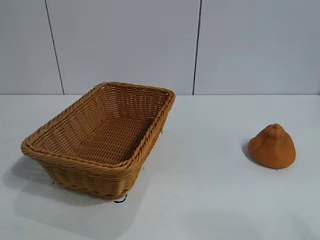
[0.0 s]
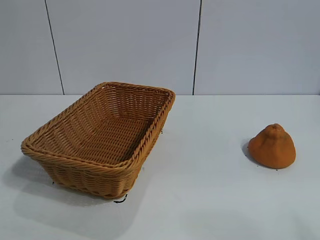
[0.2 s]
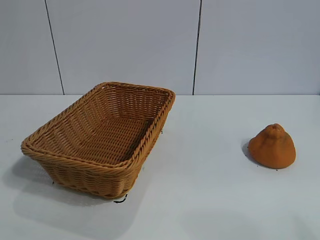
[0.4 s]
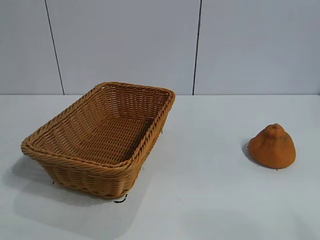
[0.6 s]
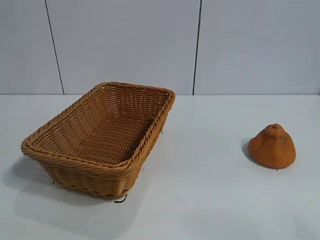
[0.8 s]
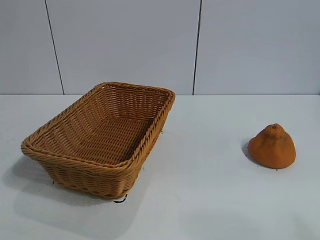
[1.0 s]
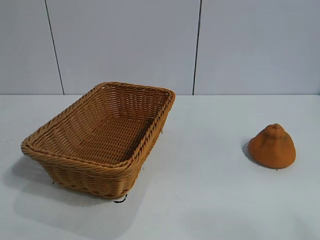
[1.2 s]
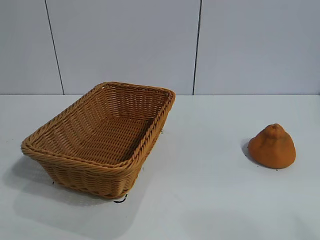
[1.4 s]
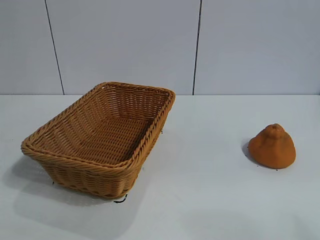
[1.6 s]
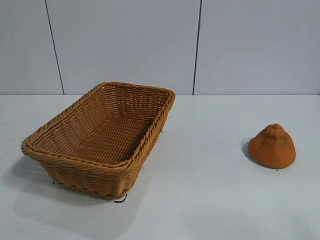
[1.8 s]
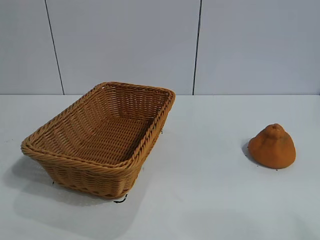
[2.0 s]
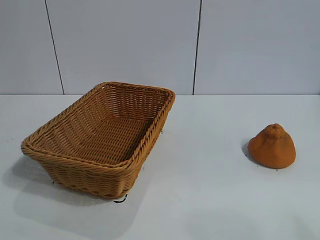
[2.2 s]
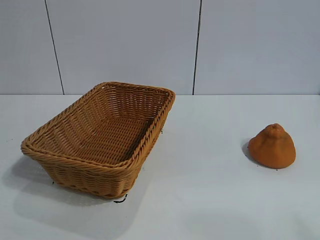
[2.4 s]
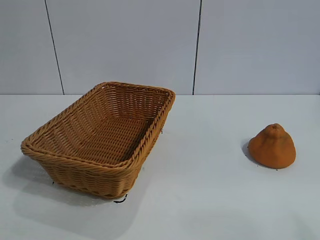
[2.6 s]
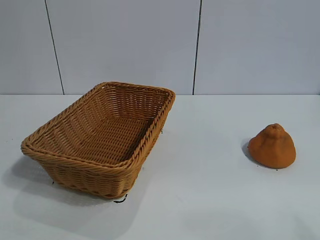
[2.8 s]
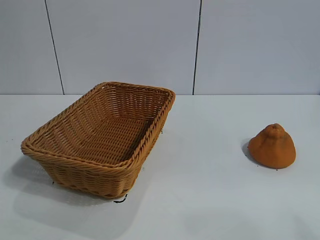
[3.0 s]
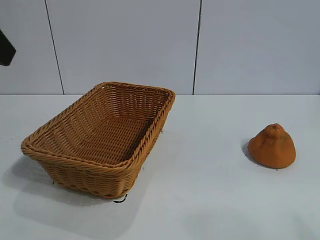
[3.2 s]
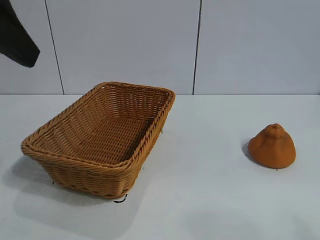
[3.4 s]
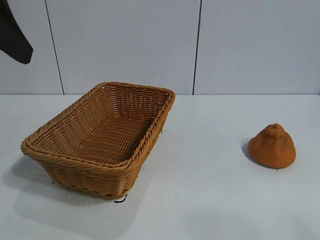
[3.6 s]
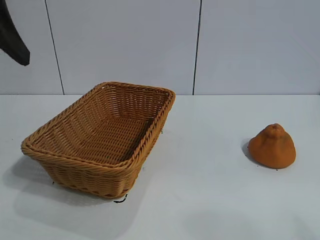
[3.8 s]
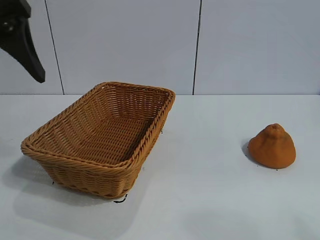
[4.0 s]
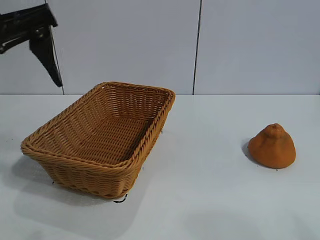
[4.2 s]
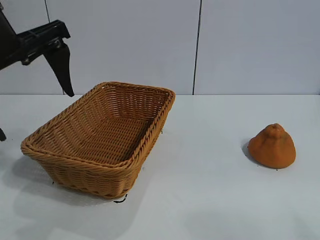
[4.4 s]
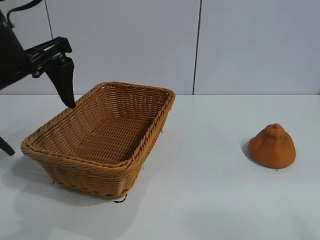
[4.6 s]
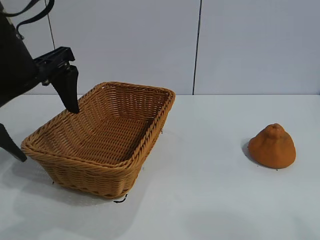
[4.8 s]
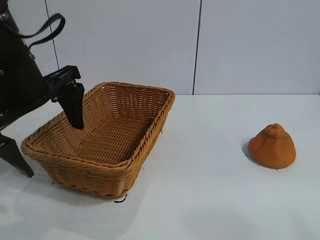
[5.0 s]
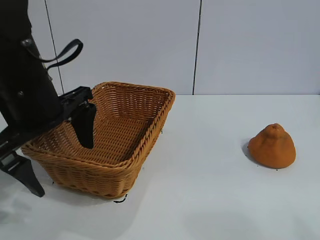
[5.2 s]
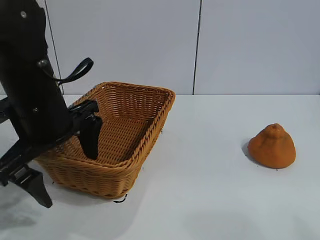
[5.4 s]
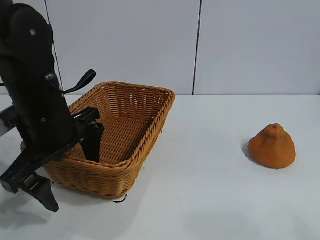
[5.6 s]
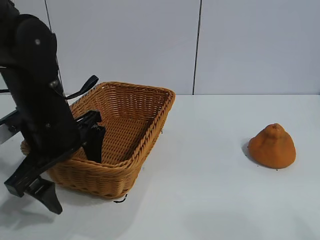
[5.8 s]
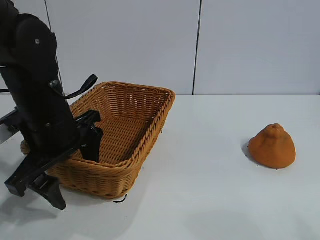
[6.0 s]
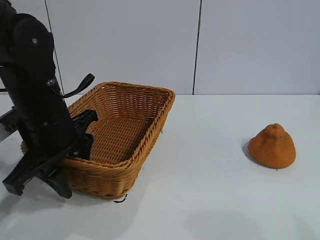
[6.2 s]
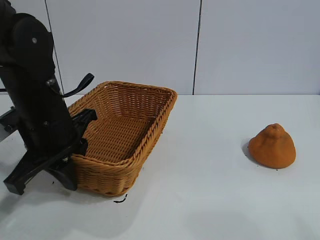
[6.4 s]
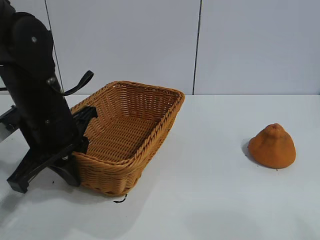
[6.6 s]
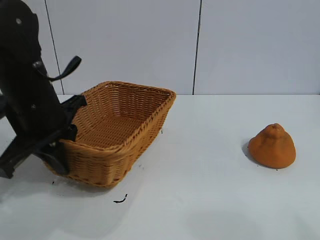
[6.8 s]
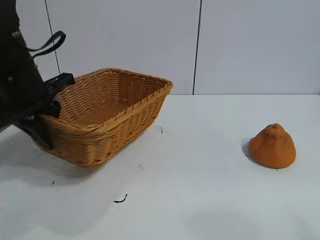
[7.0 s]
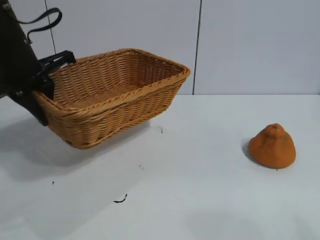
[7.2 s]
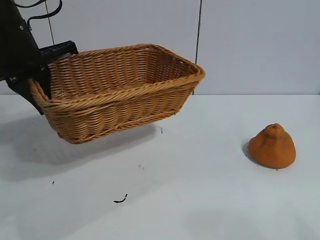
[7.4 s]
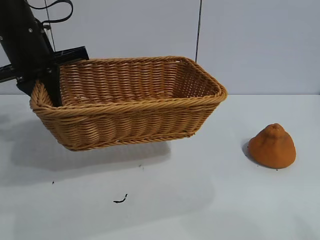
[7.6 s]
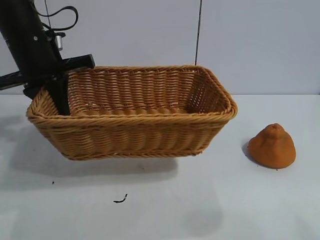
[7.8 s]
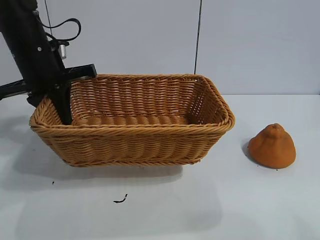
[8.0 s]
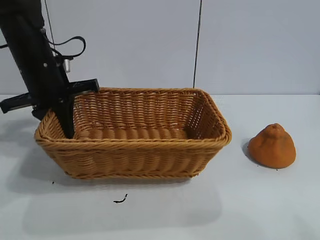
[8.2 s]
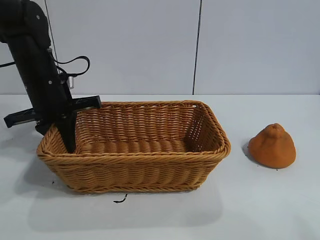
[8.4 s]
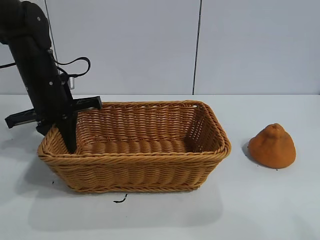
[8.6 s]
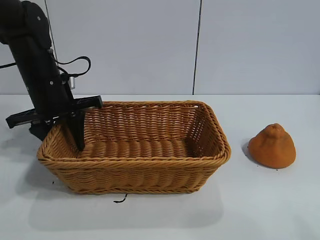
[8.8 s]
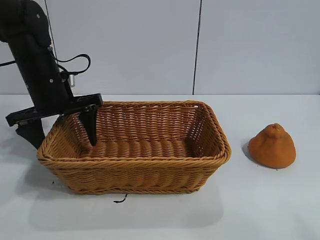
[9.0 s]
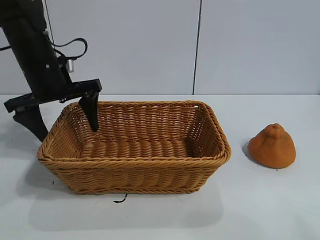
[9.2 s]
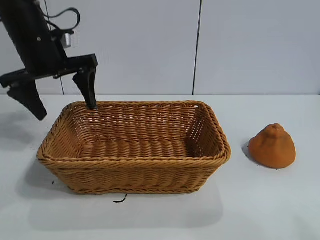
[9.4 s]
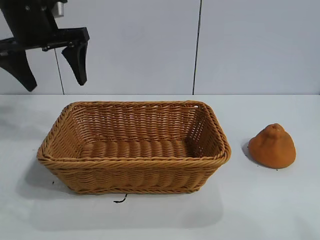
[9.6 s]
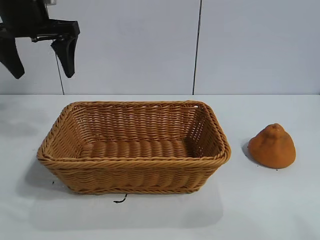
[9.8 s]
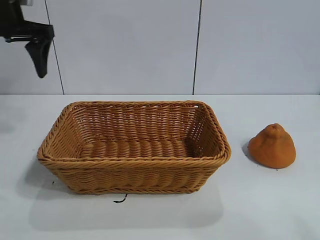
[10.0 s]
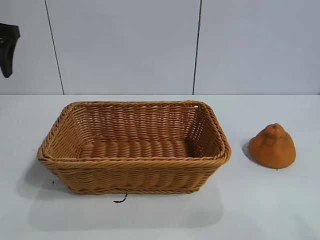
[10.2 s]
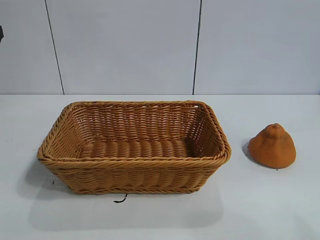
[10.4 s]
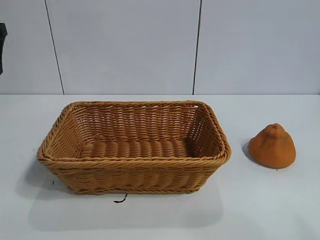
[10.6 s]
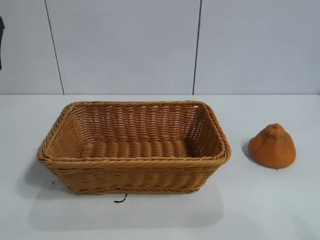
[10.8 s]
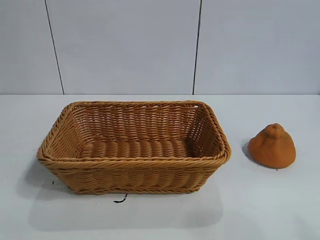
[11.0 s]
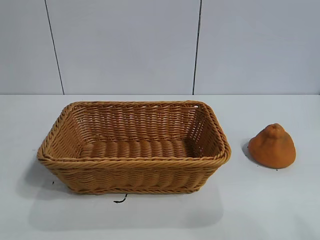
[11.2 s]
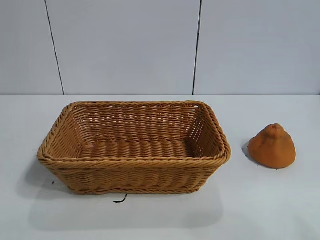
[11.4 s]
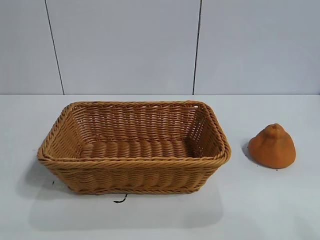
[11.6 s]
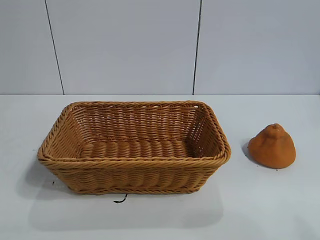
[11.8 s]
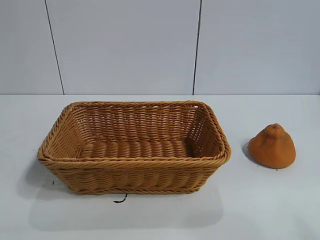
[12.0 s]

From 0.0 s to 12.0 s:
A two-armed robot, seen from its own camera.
Task of the whole recording: pick up the orange and put it into the basket.
Step, from 1.8 s to 6.4 s: Grasp the basket with left gripper.
Step, from 6.8 s to 9.0 s: Place the basket in the center of view with left gripper.

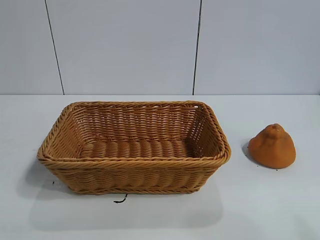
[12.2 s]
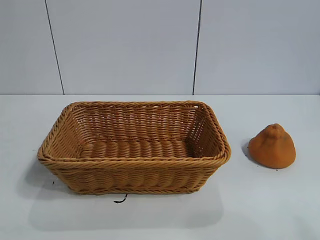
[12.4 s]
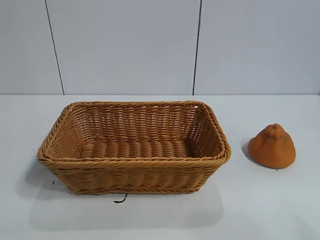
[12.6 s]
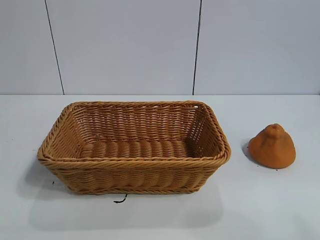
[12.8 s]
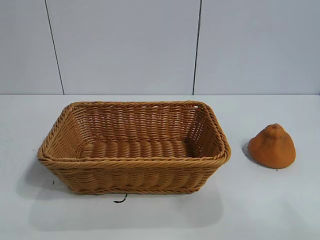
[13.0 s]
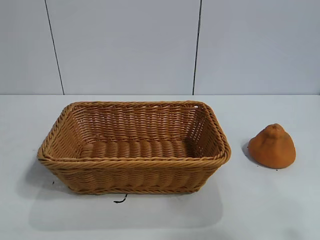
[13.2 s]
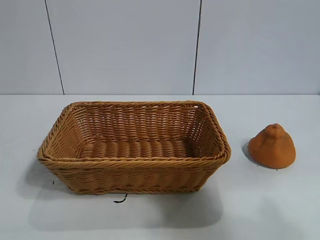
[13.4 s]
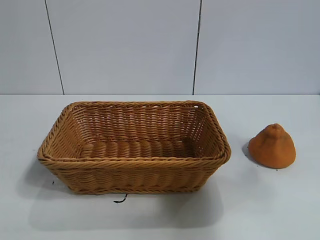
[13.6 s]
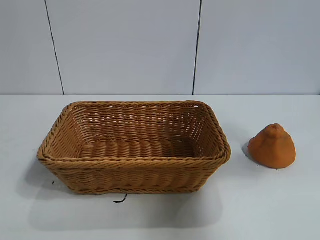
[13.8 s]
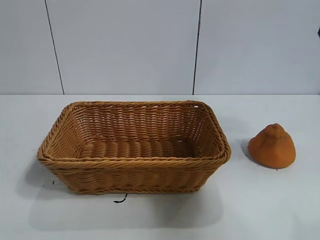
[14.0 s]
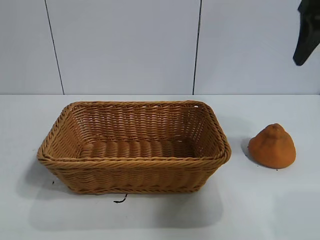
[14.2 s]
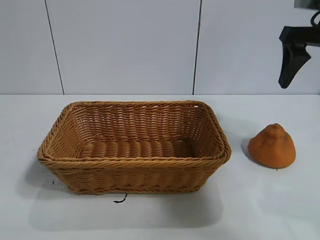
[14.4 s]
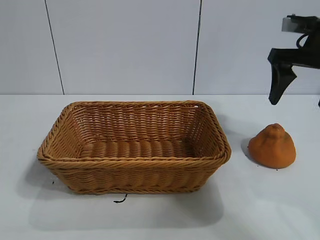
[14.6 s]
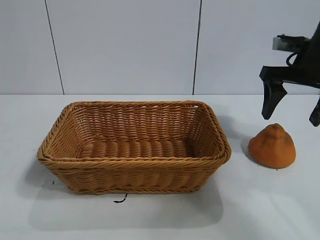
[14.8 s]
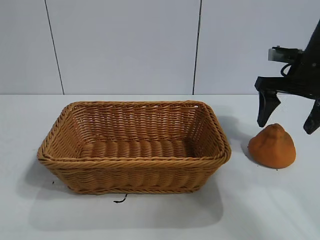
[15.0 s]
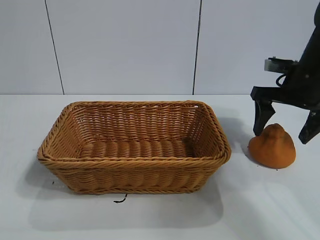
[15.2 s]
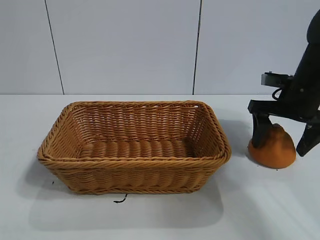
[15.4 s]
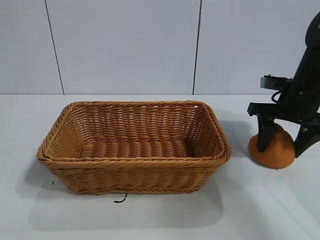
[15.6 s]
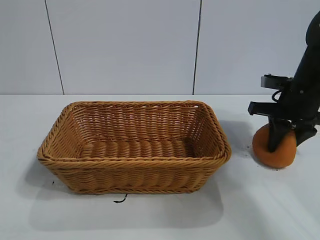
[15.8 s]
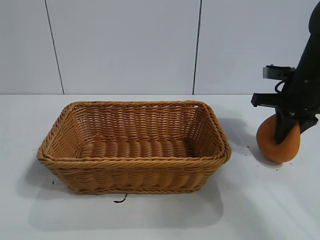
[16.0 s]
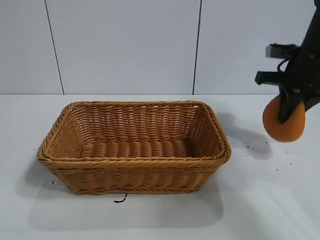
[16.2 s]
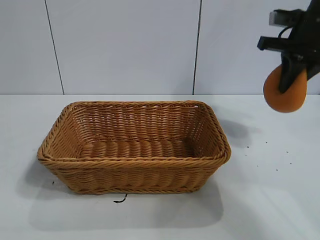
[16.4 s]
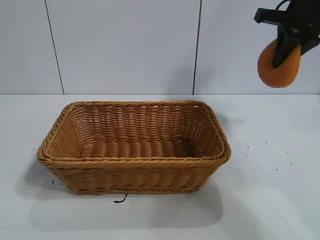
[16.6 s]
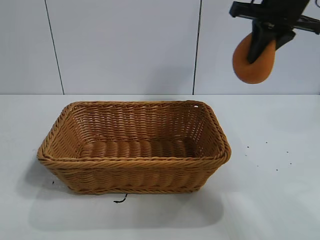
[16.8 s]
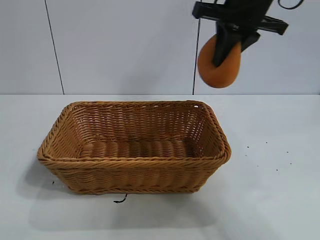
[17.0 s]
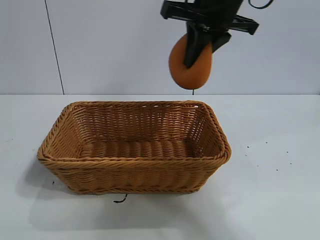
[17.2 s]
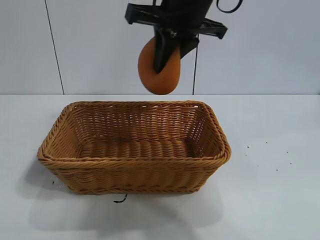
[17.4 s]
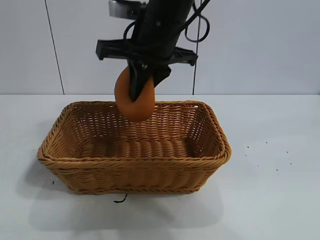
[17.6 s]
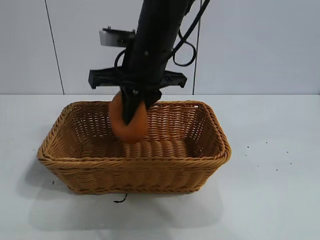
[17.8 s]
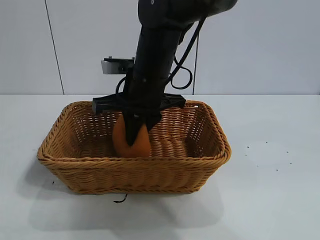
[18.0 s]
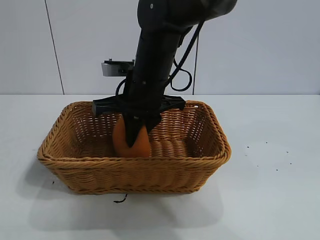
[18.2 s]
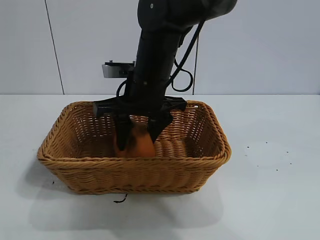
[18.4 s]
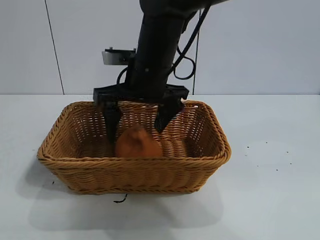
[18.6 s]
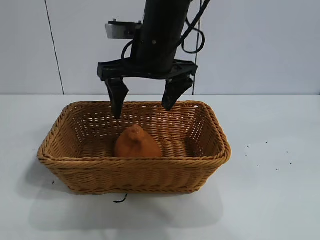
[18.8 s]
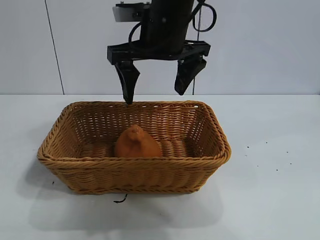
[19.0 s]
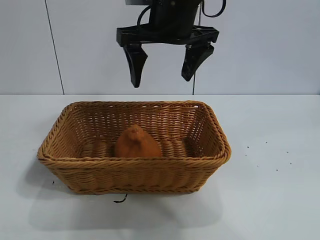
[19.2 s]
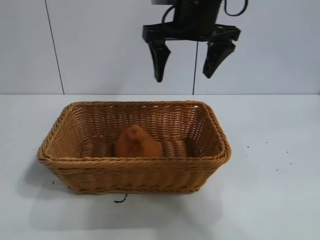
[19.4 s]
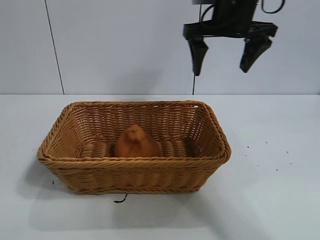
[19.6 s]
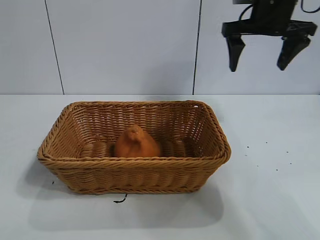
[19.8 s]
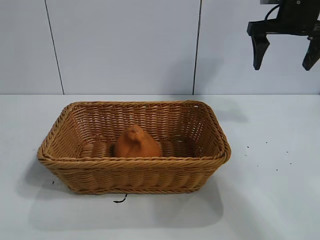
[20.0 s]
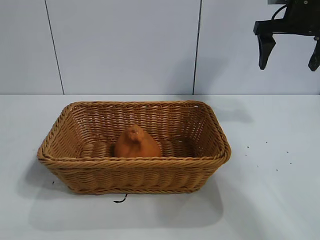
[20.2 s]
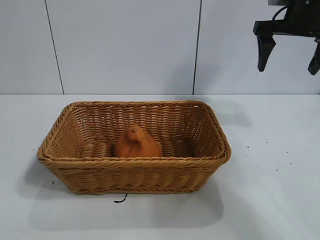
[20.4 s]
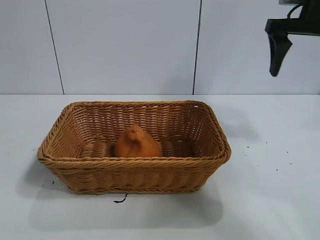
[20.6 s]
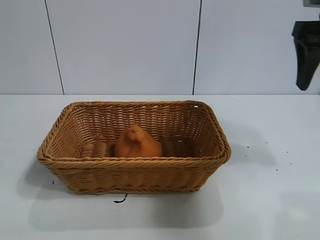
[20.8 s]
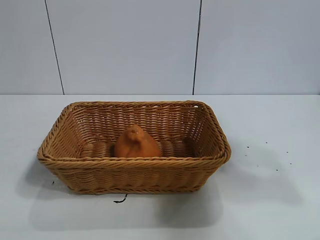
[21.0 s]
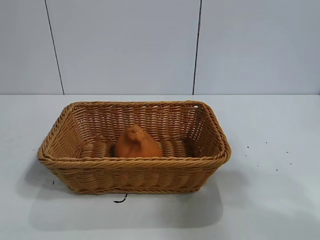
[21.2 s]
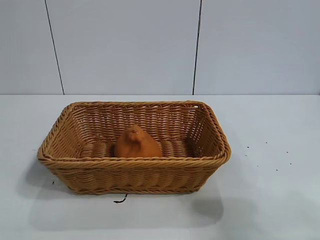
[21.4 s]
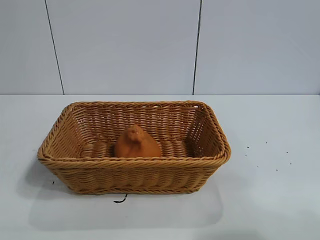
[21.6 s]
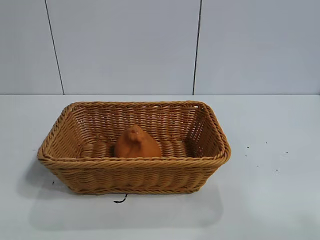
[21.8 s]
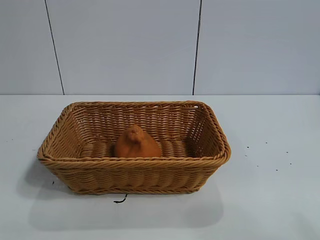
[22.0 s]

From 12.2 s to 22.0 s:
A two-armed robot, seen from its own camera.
Task of the whole recording: pick up the orange and put it into the basket.
Step, from 12.2 s to 16.0 s: Grasp the orange with right gripper.
Step, from 16.2 s to 18.4 s: Place the orange in the basket with right gripper.

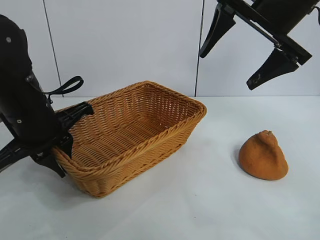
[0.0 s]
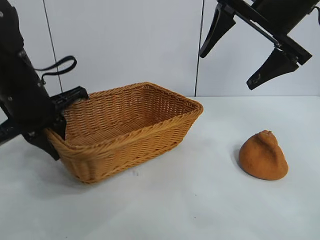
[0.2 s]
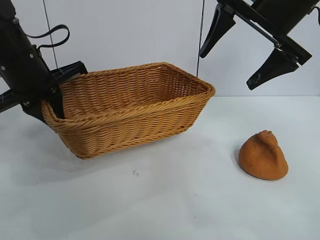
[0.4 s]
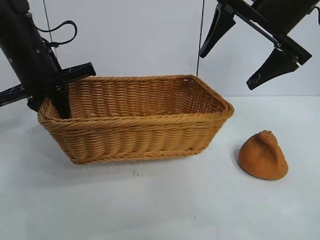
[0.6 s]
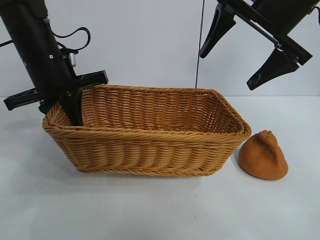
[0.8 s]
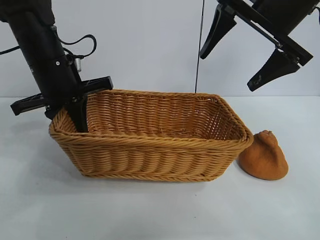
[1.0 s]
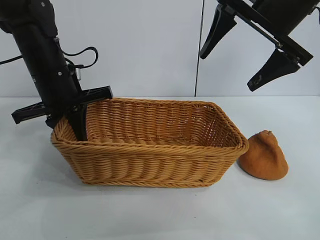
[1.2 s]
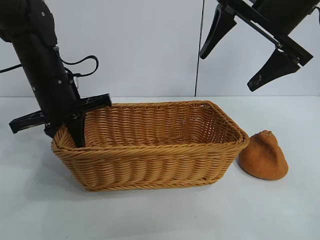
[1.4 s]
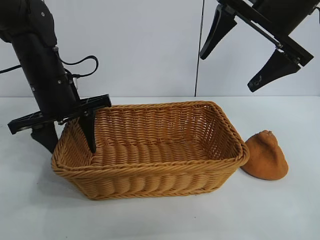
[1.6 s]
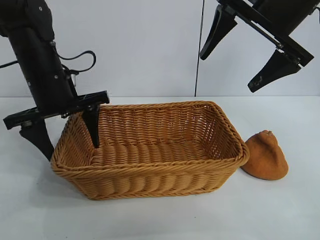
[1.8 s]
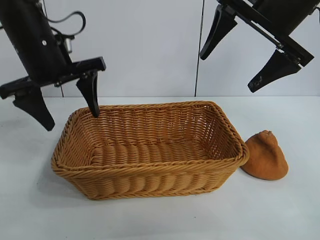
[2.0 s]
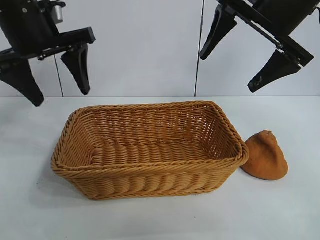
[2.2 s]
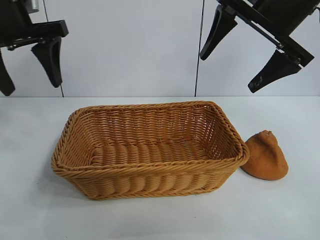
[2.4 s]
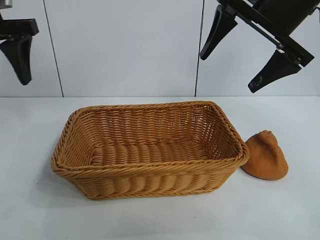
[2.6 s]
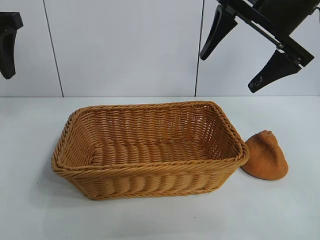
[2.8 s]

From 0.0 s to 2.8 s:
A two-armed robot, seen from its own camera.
Task of the whole recording: pick up the orange and put it into the basket.
Step, from 0.2 s to 1.6 s: Place the basket in the center of view with left gripper.
